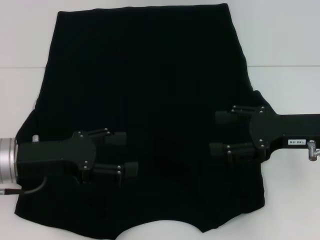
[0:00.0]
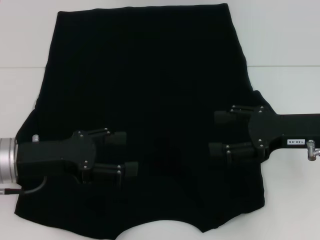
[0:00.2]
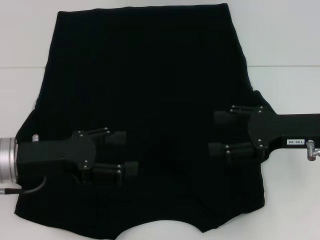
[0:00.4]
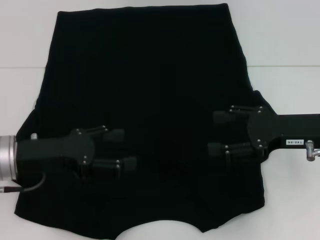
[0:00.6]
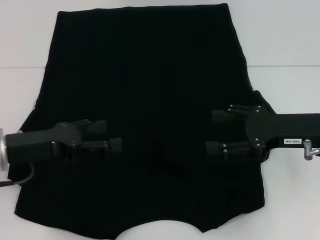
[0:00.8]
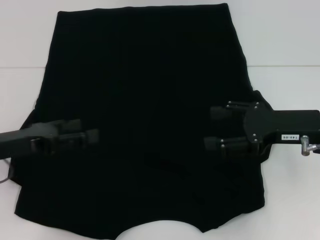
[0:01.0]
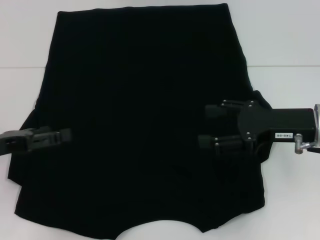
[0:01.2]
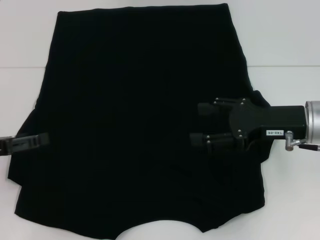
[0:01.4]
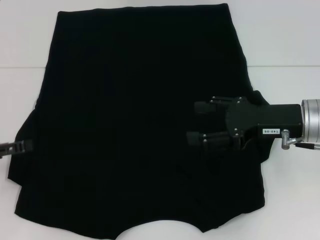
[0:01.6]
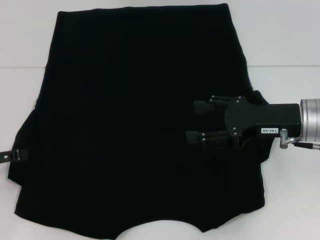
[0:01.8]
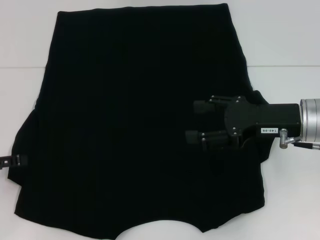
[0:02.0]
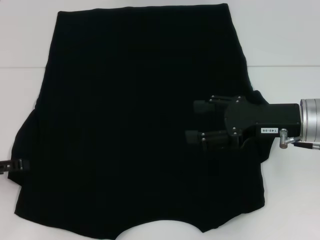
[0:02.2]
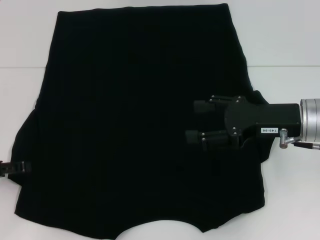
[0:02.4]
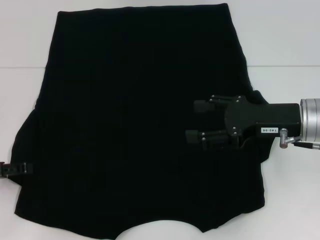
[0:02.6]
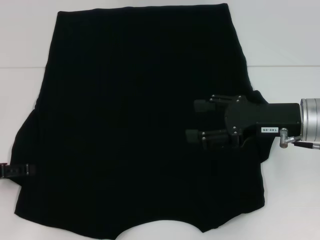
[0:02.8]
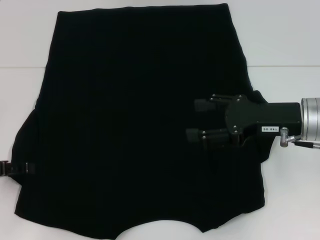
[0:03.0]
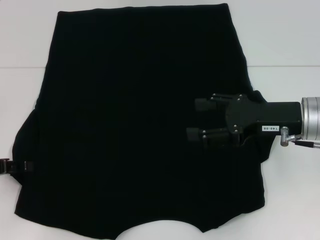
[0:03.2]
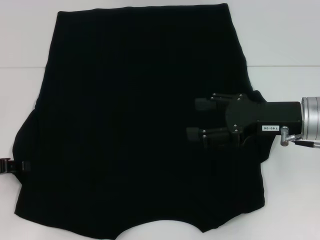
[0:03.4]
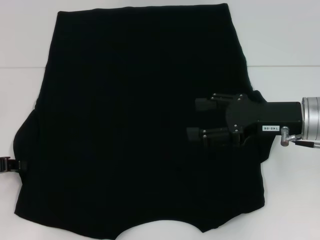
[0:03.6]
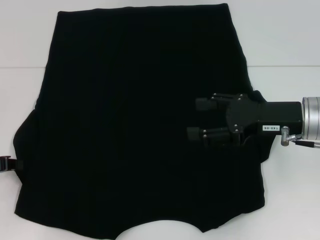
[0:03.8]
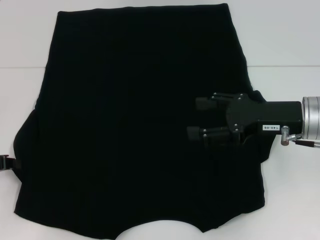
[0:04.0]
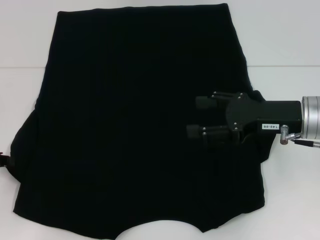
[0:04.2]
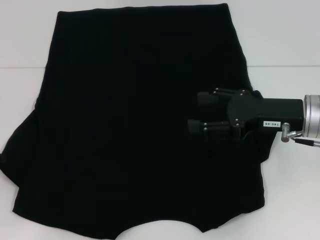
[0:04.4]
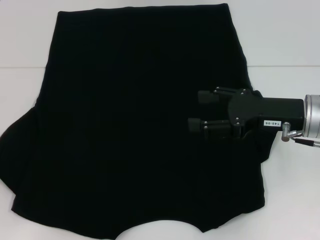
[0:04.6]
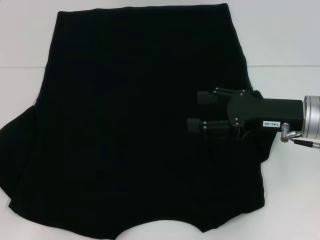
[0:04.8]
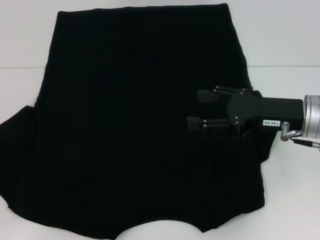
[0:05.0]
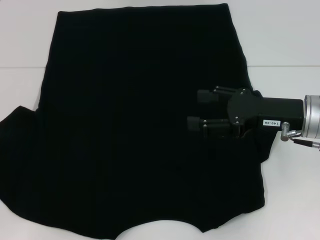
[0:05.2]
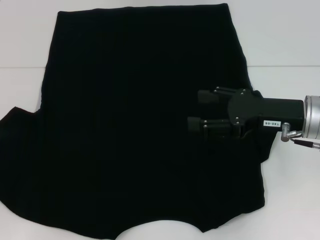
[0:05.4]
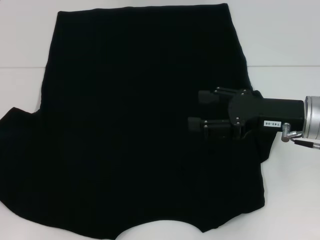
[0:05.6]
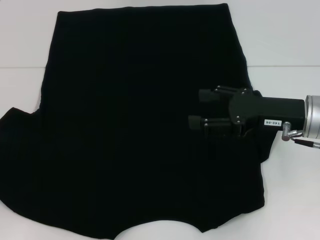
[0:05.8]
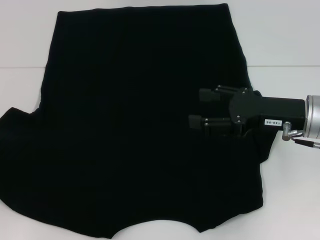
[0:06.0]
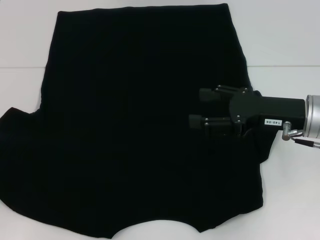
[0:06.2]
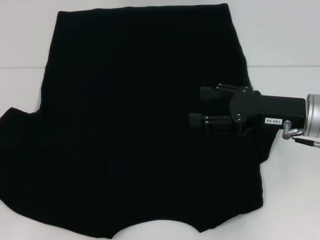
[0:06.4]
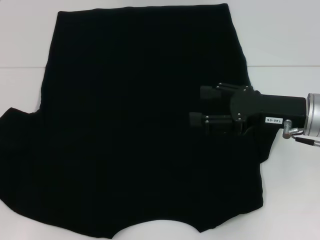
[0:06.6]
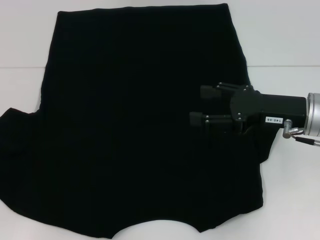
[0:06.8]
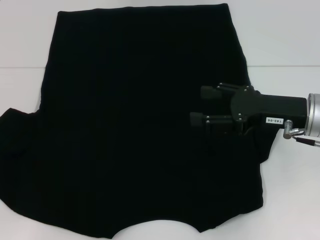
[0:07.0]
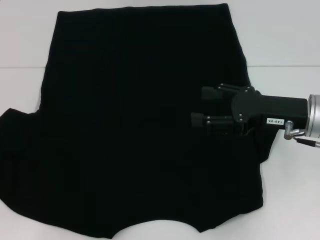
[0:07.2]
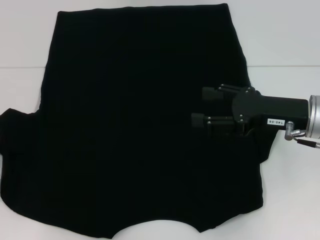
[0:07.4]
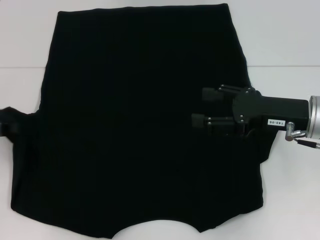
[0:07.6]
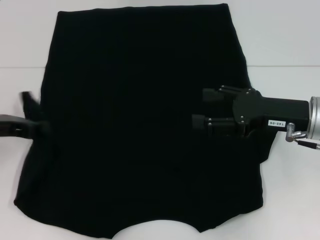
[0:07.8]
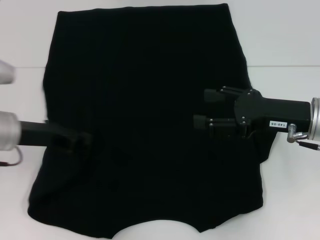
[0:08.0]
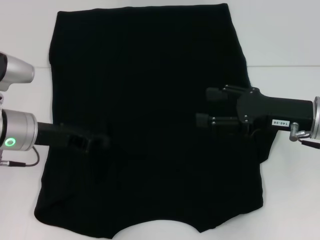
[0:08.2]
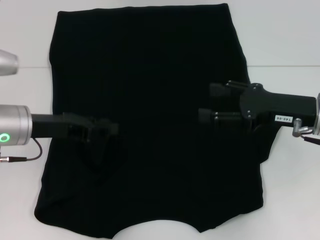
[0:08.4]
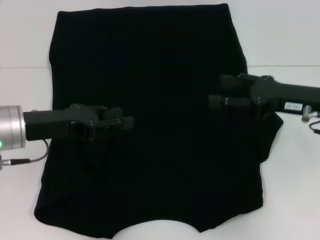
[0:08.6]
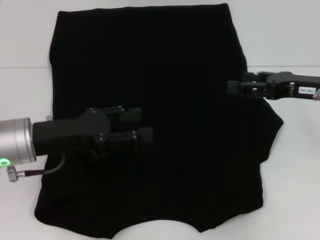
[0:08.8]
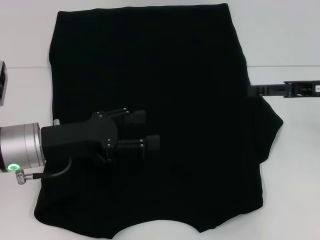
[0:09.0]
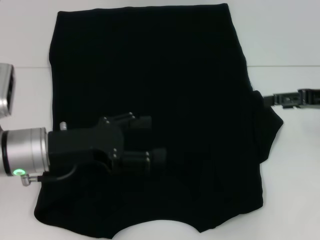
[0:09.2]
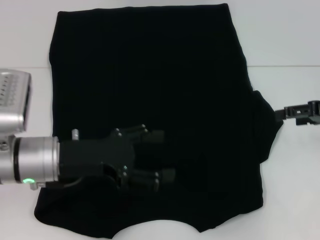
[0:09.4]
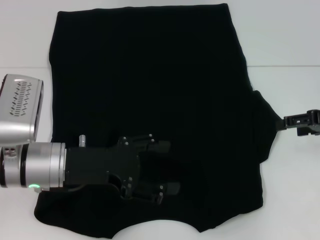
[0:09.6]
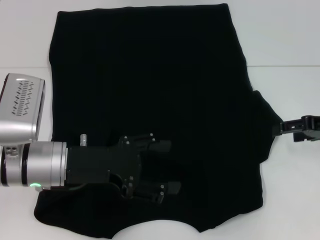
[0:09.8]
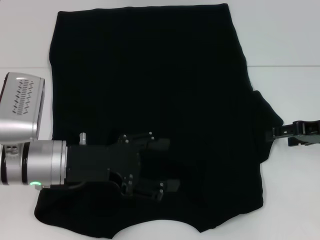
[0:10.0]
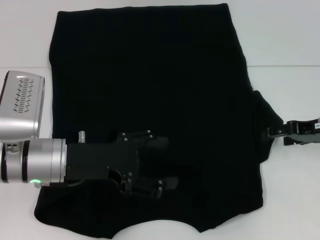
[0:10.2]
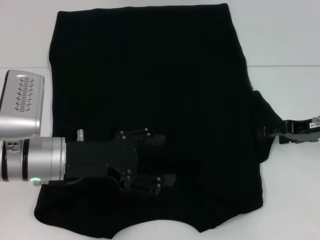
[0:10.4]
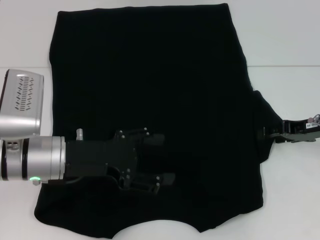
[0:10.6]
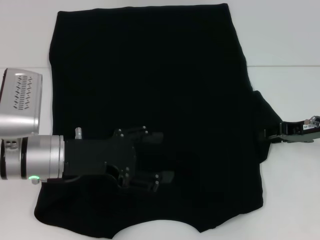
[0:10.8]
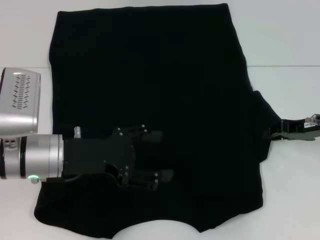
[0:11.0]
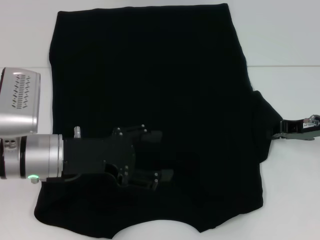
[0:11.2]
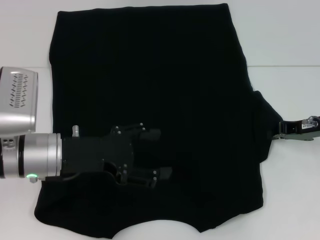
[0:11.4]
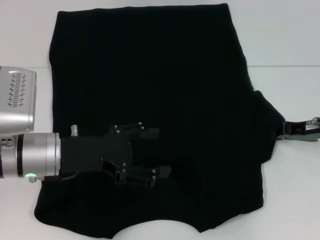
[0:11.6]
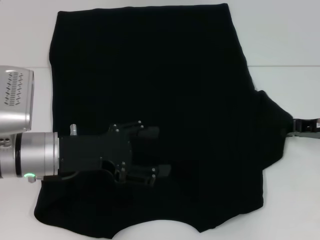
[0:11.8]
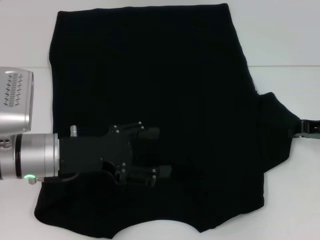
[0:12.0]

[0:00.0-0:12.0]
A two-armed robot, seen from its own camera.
Step, 0:00.0 to 0:08.0: Fold the bottom left sleeve with your left hand.
0:00.0 to 0:01.6: The left gripper travels to the left by about 10 cm.
0:01.6 to 0:03.0: The grippers move only a little.
0:03.0 to 0:04.4: The left gripper closes.
0:04.4 to 0:06.0: The grippers move only a little.
0:06.0 to 0:07.6: The left gripper goes some 5 cm to the right.
0:07.6 to 0:09.0: The right gripper moves to the right, some 5 cm, while the left gripper goes approximately 15 cm to the right, and opens.
0:09.0 to 0:10.4: The right gripper travels downward by about 5 cm.
0:10.4 to 0:12.0: The right gripper closes up.

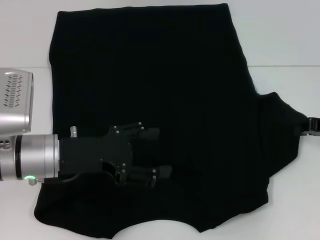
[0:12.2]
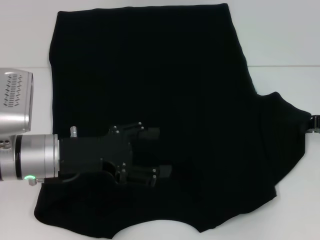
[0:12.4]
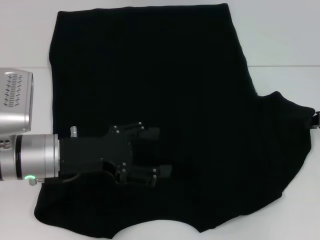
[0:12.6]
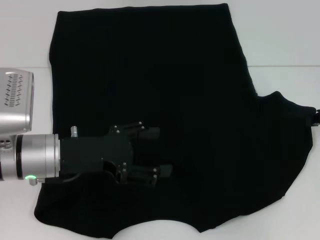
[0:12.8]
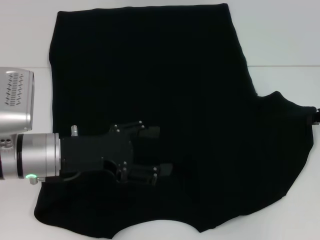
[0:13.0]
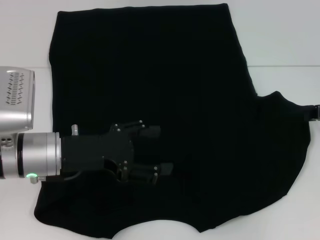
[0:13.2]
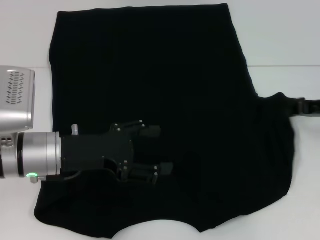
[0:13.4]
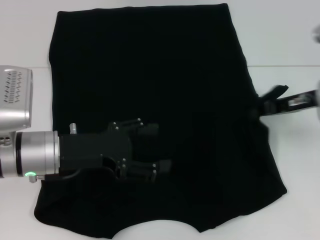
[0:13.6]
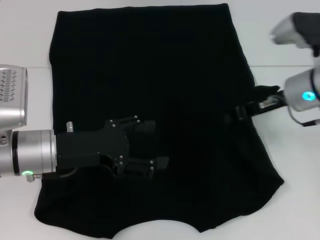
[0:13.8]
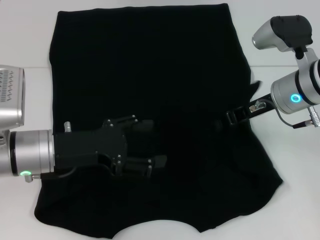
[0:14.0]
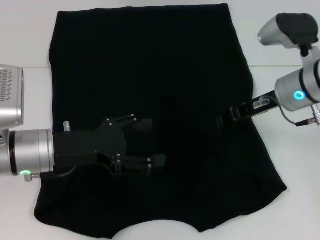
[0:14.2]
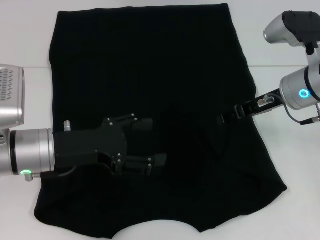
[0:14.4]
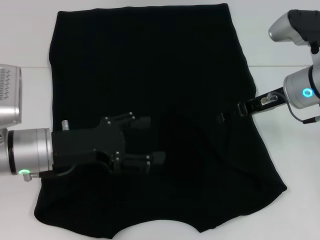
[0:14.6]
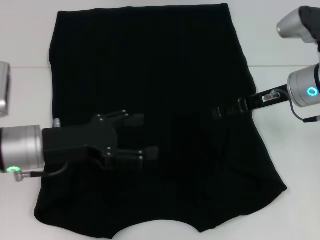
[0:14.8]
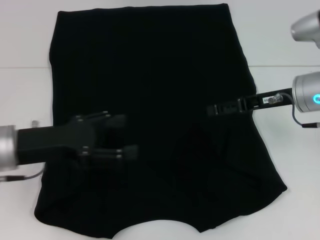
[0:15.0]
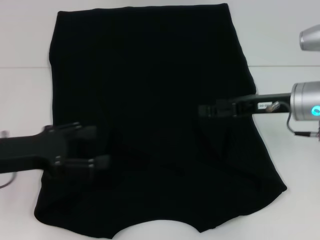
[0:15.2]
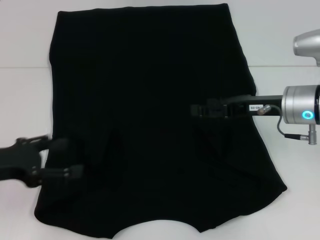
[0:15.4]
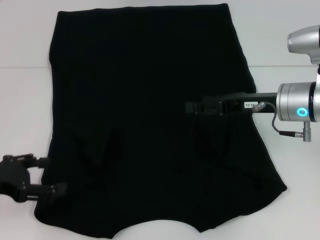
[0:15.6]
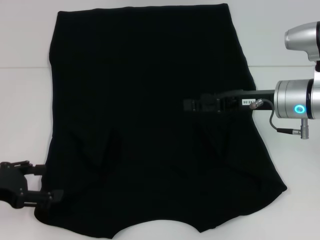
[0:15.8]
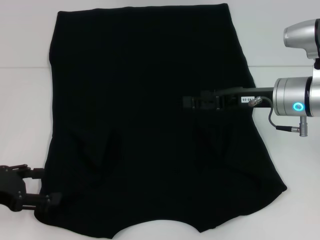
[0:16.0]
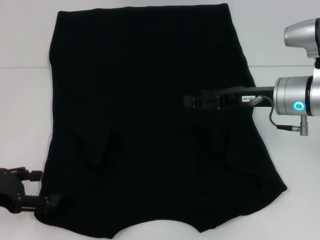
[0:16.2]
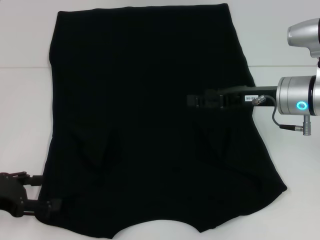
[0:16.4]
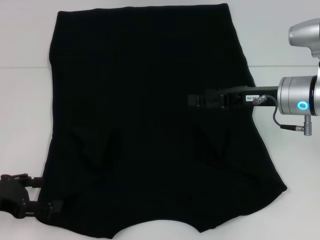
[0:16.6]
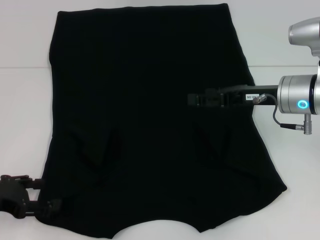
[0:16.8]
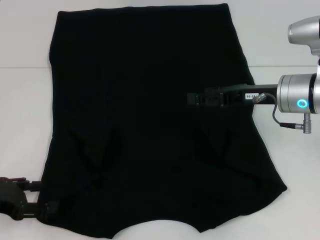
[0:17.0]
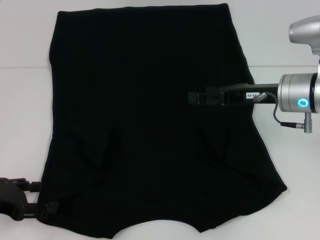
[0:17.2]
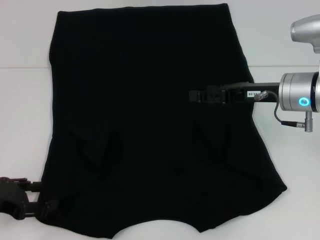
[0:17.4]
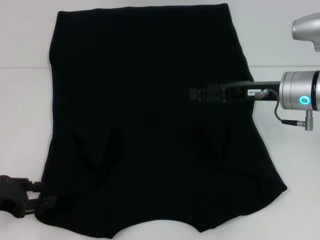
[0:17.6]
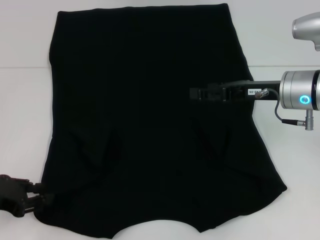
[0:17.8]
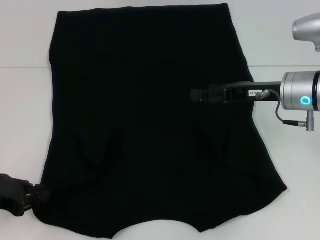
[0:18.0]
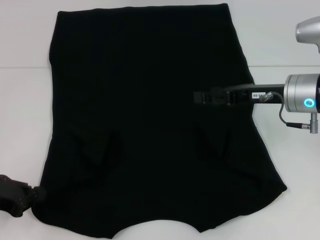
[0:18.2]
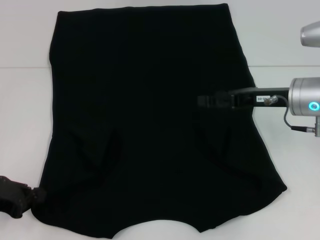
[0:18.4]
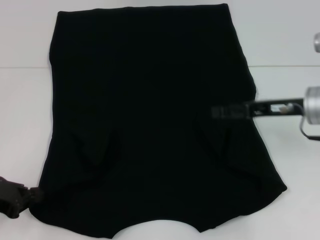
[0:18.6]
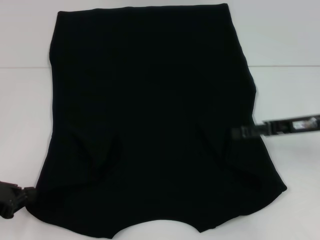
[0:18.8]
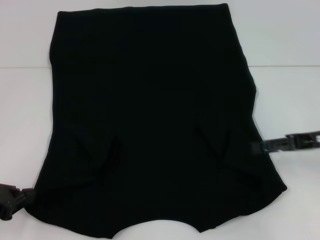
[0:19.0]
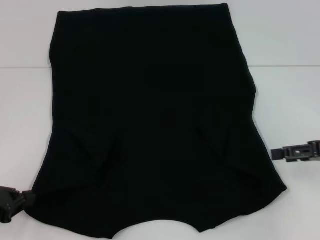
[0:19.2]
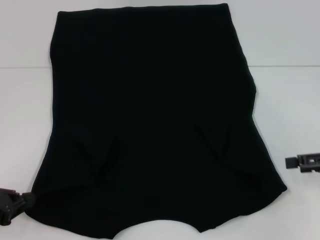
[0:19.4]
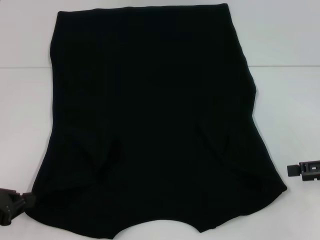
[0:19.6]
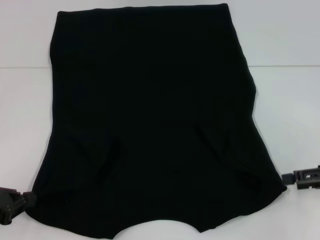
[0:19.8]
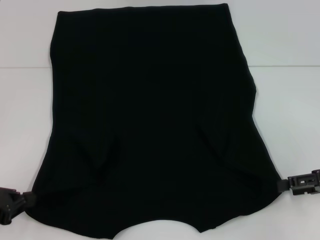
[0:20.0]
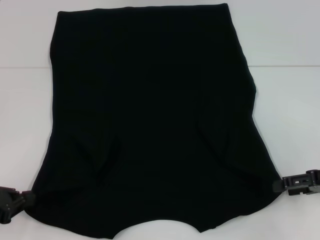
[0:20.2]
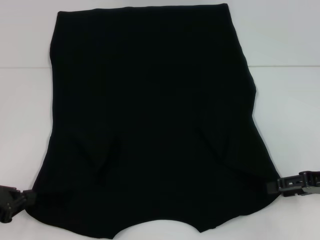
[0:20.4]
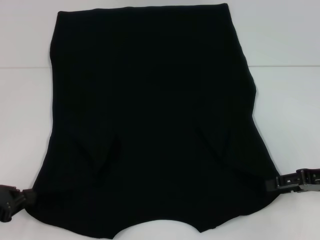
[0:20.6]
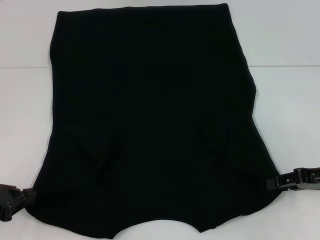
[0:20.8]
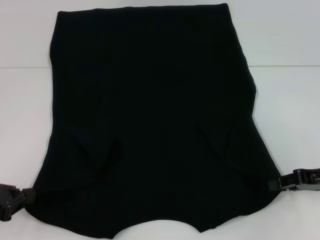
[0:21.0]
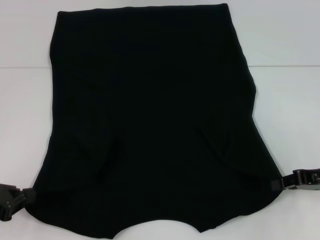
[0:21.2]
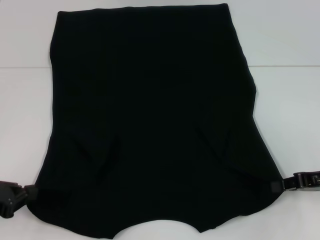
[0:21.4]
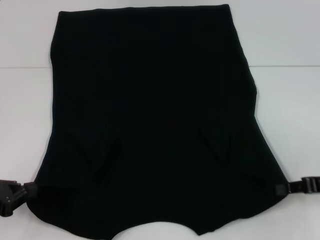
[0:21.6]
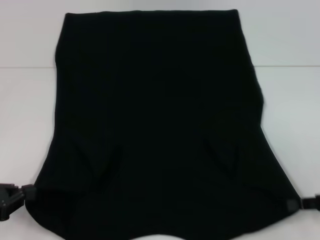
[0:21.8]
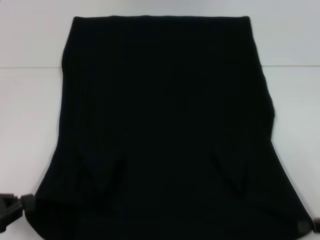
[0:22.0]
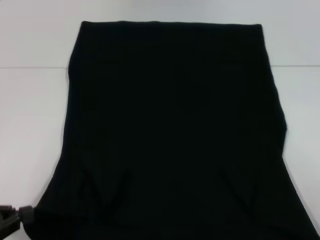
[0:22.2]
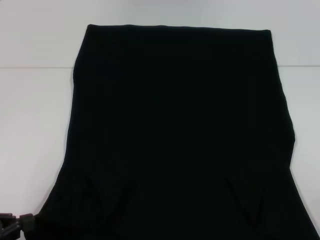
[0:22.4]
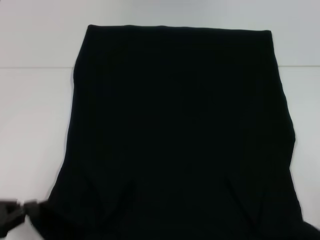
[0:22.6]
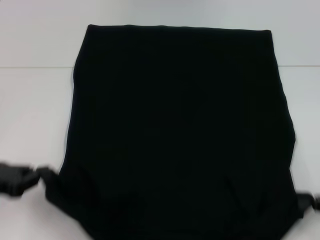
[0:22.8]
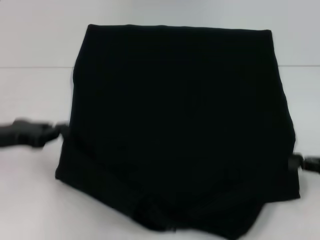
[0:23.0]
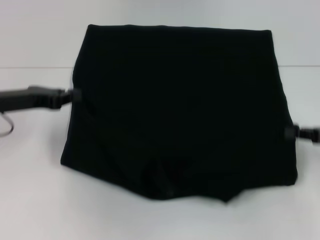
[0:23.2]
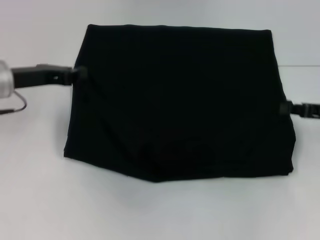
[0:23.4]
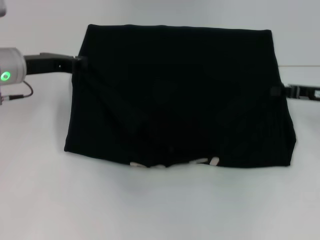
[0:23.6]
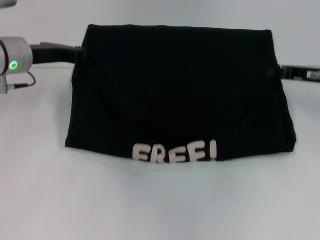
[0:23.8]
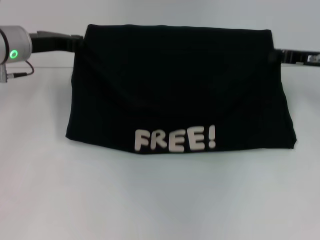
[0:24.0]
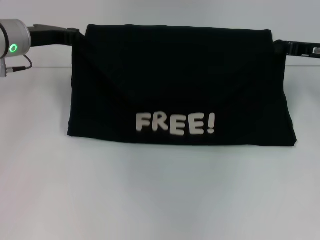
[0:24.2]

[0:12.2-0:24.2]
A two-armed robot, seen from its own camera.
Step, 0:12.2 to 0:14.4: Fold the bottom right sleeve with your right hand.
Step, 0:14.6 to 0:18.4: Grab the bottom left corner with your left hand.
Step, 0:18.6 to 0:21.4: Grab the bottom right corner with your right hand.
0:12.2 to 0:13.8: The right gripper is displaced to the left by roughly 10 cm.
0:13.8 to 0:15.2: The right gripper opens. Meanwhile the left gripper shifts some 5 cm to the left.
0:15.2 to 0:16.6: The left gripper shifts by about 5 cm.
0:16.6 to 0:18.2: The left gripper closes up.
0:18.2 to 0:19.8: The right gripper is displaced to the right and backward by some 15 cm.
0:19.8 to 0:21.2: The right gripper closes up.
0:21.2 to 0:22.6: The right gripper moves backward and to the right, approximately 15 cm.
0:22.6 to 0:24.2: Both grippers travel together forward, about 25 cm.
